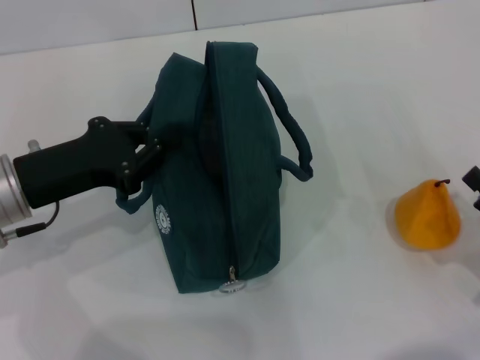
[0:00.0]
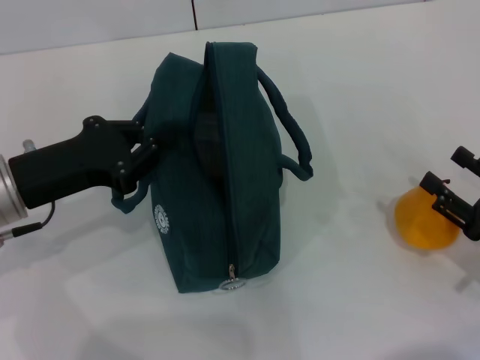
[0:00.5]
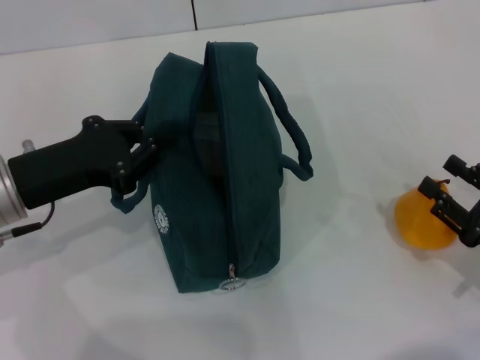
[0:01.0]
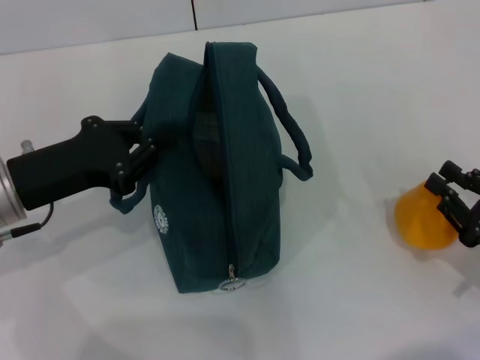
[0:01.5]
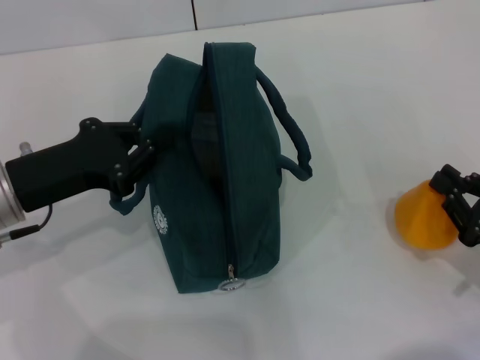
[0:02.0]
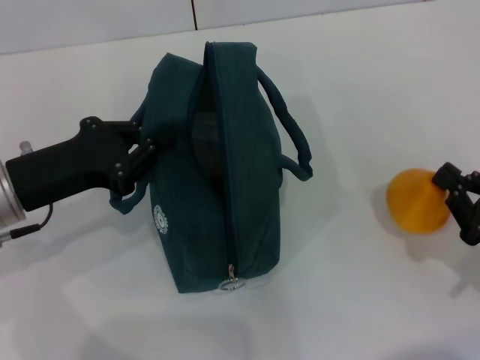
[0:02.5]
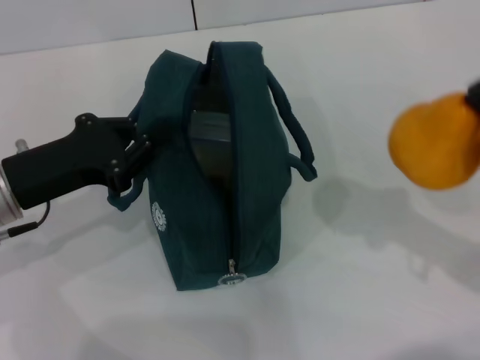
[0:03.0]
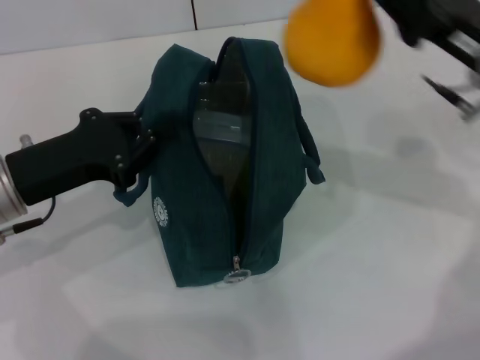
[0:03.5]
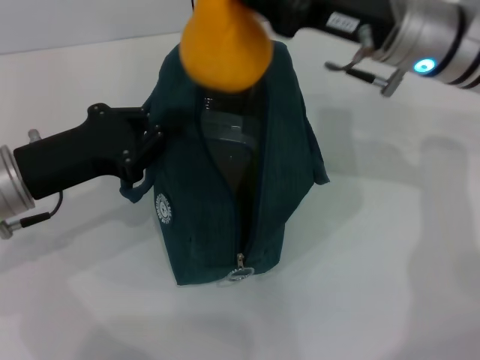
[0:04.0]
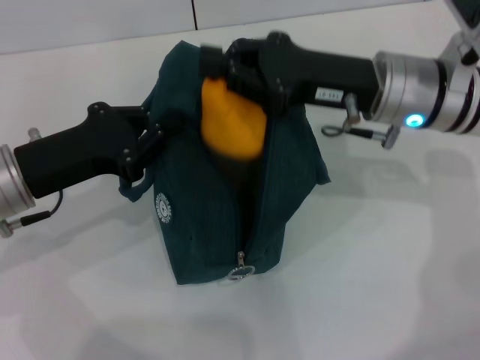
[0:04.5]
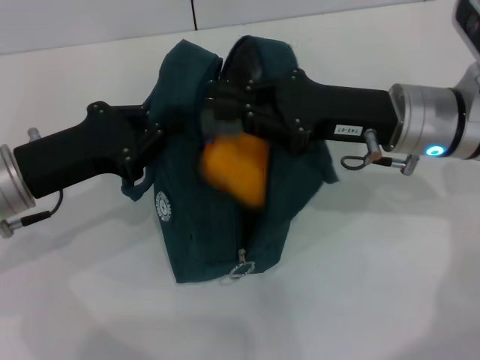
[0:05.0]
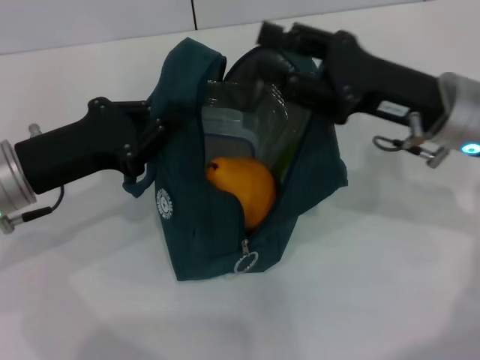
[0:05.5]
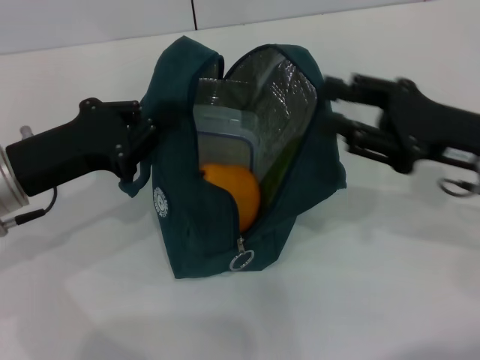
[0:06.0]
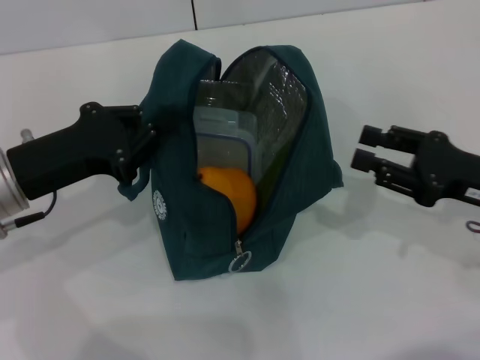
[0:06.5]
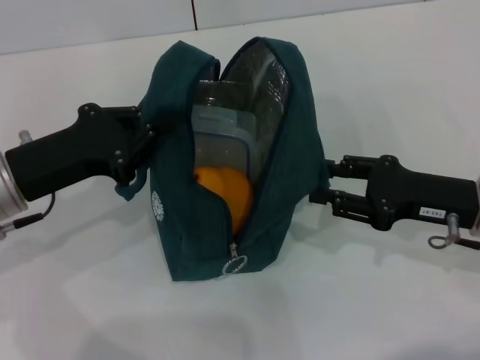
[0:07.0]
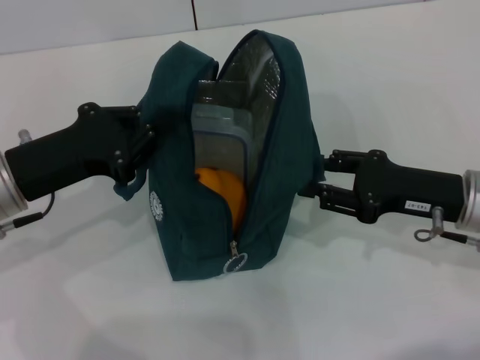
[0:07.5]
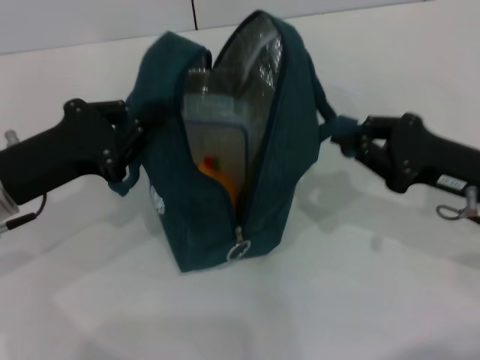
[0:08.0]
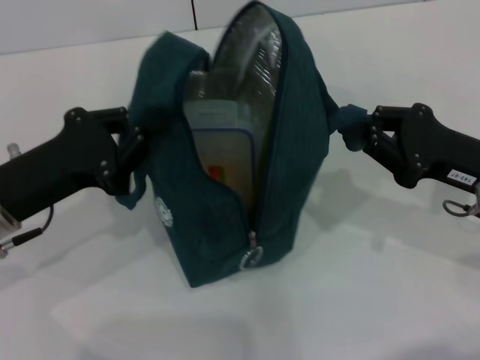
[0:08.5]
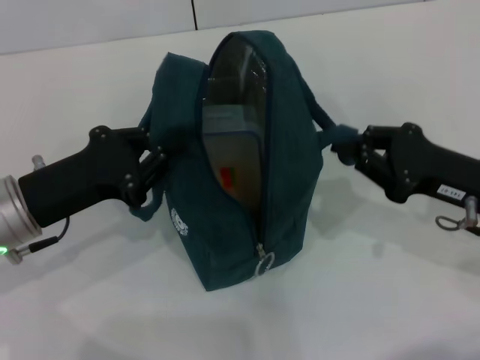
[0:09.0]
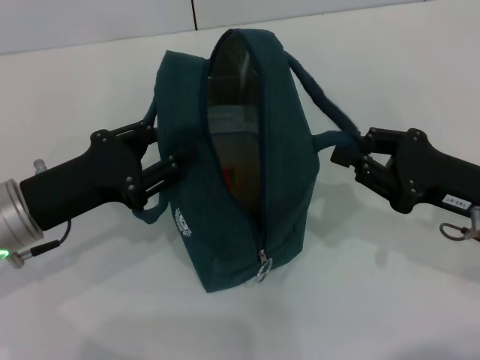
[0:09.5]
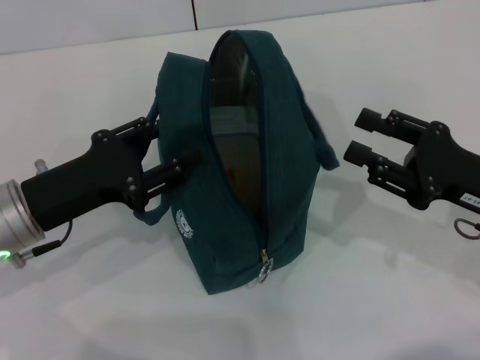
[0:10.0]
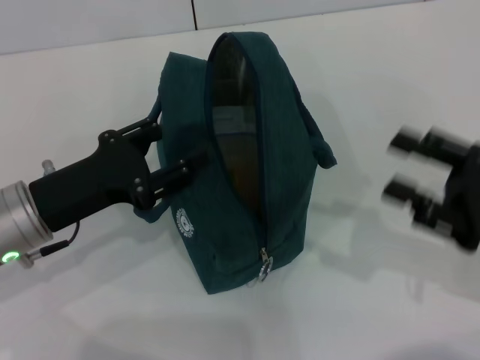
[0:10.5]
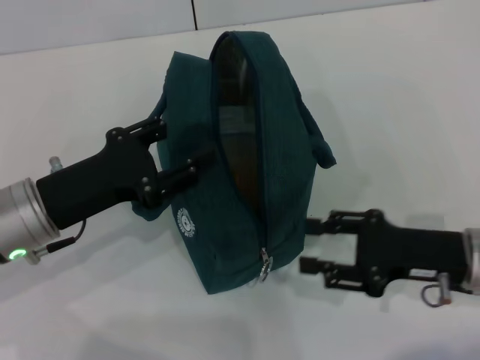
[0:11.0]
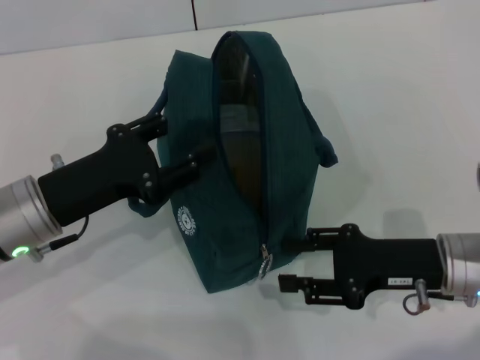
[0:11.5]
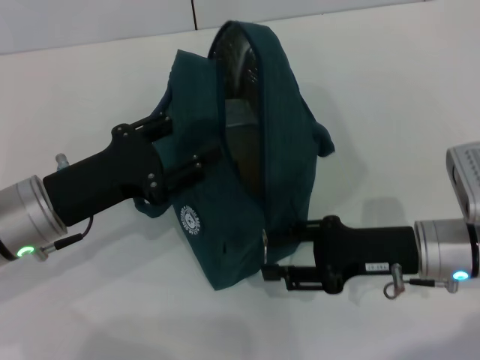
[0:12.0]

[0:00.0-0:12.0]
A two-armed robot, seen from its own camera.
Step, 0:00.0 to 0:02.0: Grab the pear with your right hand.
Step, 0:05.5 to 0:10.0: Hold the lunch bag with your right hand.
0:00.0 to 0:02.0: The right gripper closes.
0:02.0 to 0:04.0: The right gripper shifts roughly 30 cm forward, upward and to the left.
0:04.0 to 0:06.0: The right gripper heads to the right, backward and downward, covering roughly 15 cm, and opens up.
0:06.0 to 0:08.0: The grippers stay close to where they were, moving slightly.
0:08.0 to 0:10.0: The left gripper opens its fingers.
0:10.0 to 0:12.0: The right gripper travels to the left by roughly 5 cm.

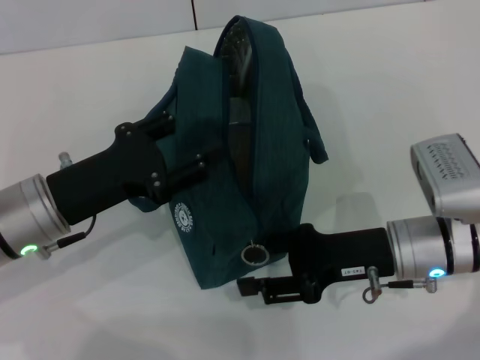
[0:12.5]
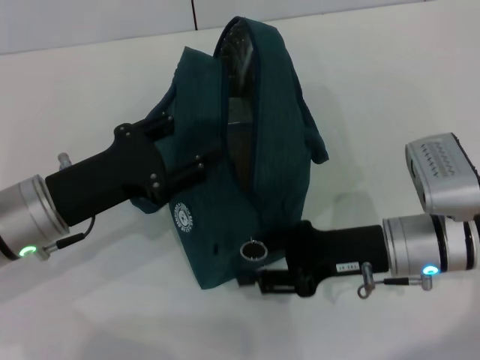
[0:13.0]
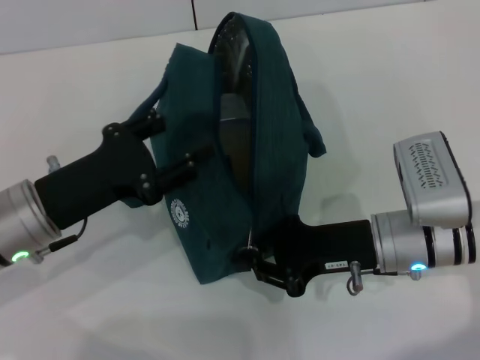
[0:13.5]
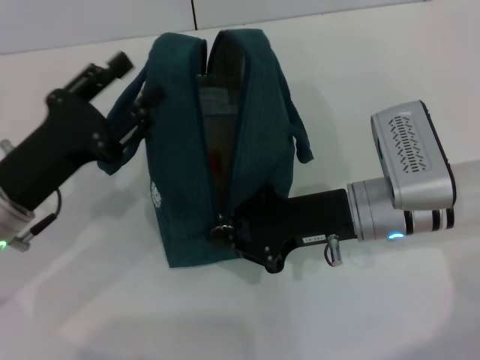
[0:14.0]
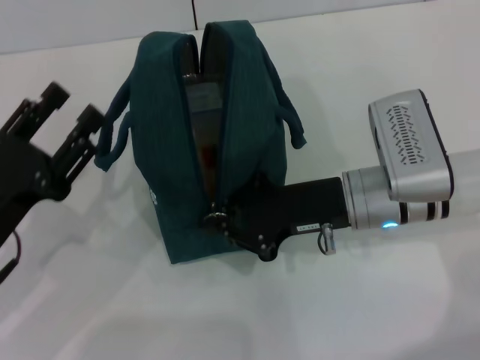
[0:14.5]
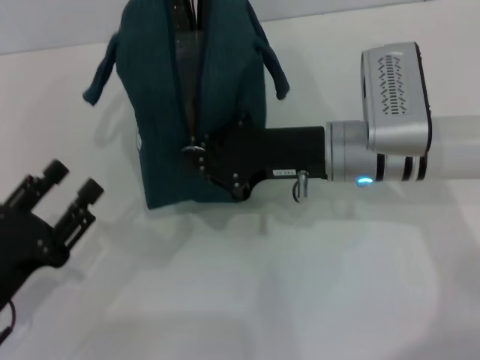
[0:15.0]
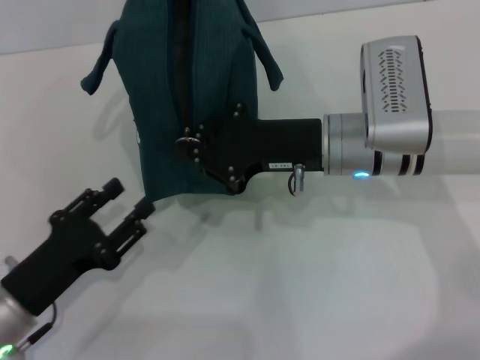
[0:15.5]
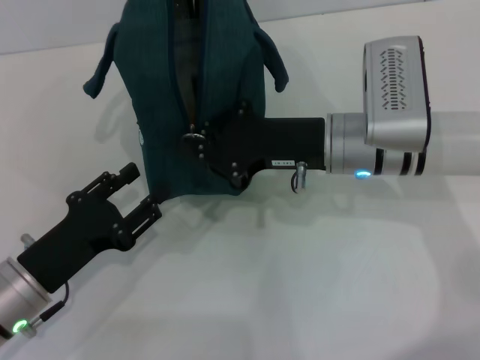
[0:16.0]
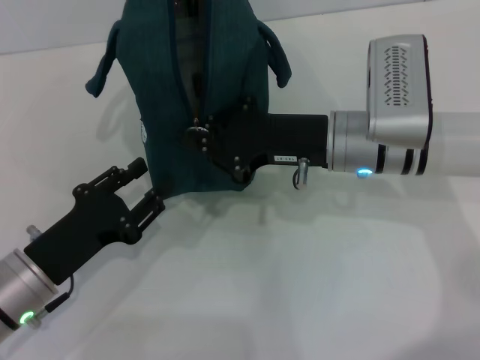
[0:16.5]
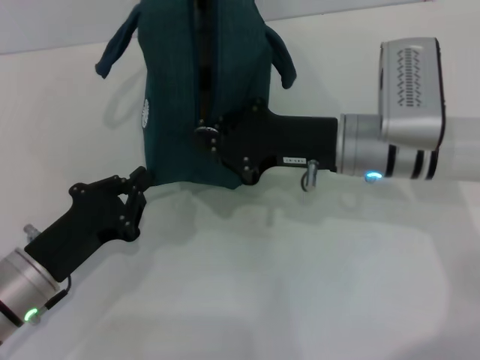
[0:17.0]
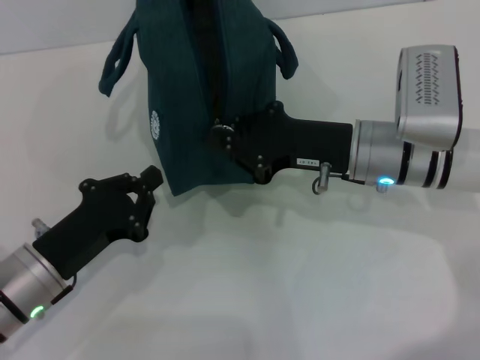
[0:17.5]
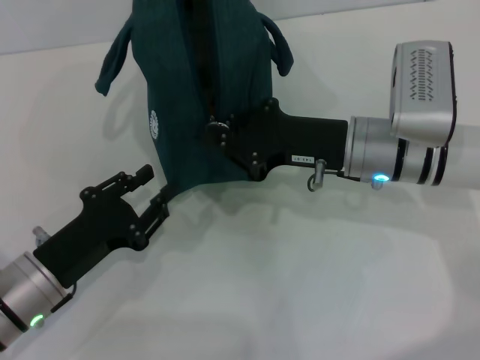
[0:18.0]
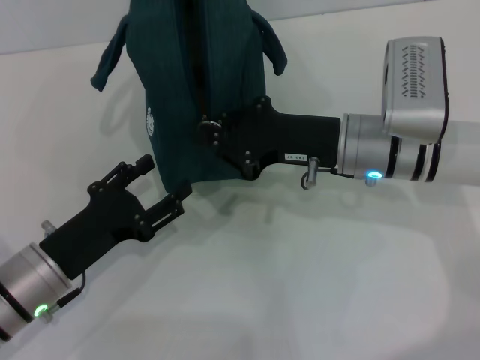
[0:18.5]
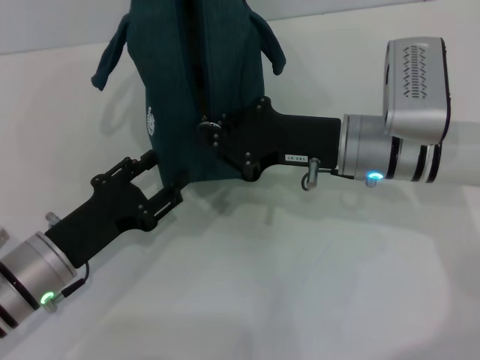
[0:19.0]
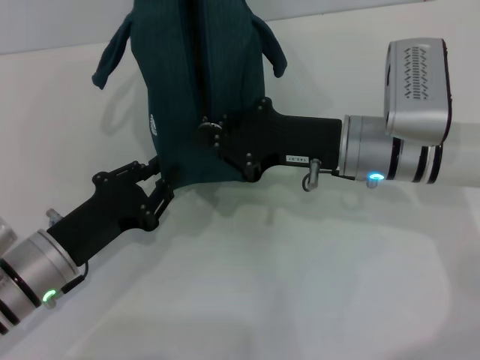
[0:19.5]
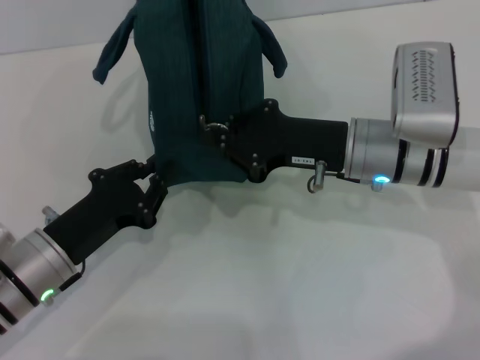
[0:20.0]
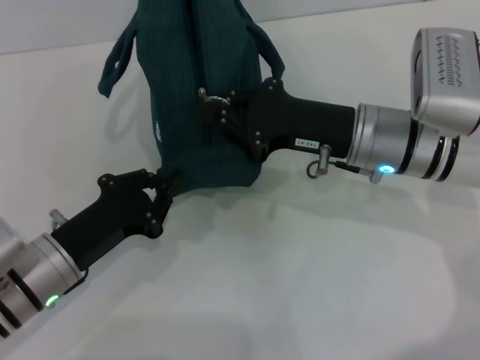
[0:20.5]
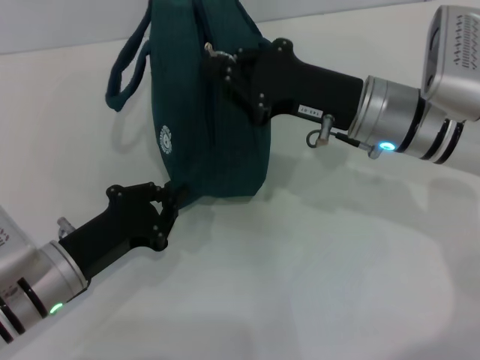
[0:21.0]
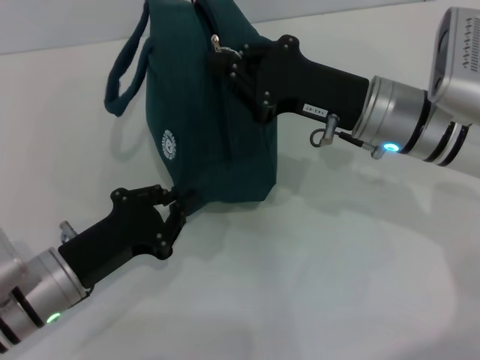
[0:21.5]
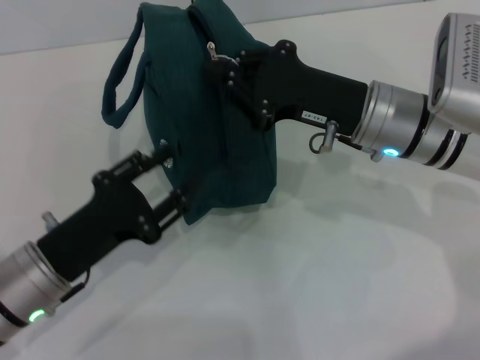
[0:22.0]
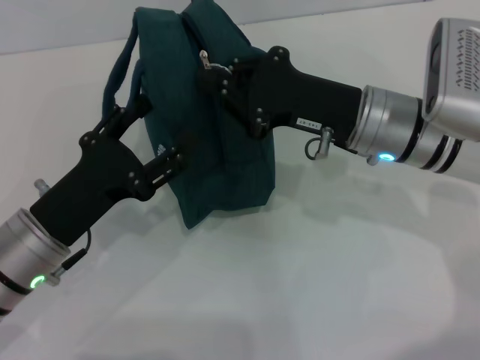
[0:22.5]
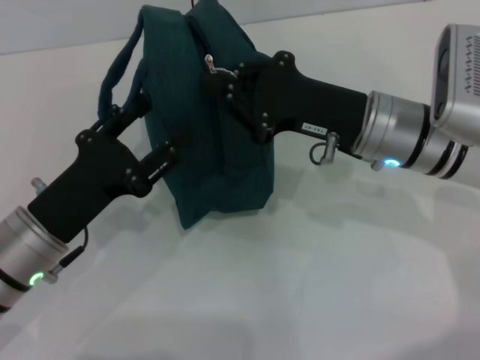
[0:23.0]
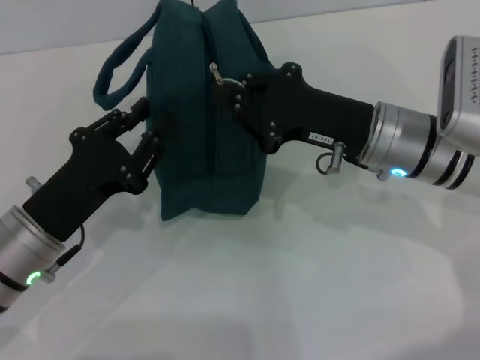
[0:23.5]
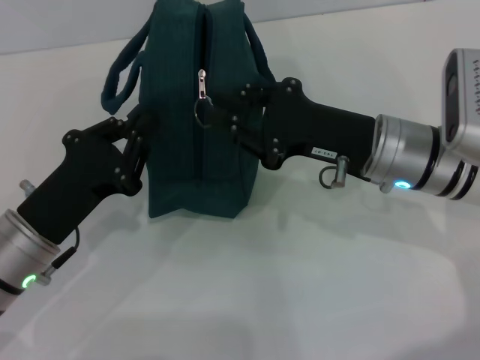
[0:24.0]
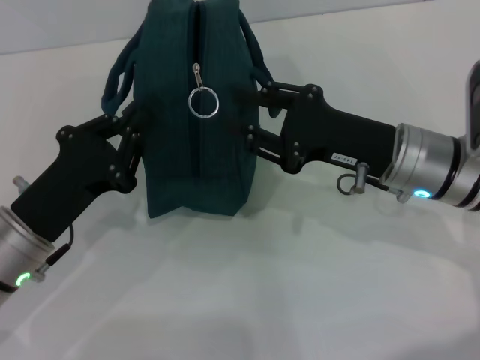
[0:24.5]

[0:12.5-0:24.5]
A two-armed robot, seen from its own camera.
0:12.5 to 0:14.5: The right gripper shifts by approximately 5 cm, and closes its fingers; the left gripper travels backward and to the left by about 10 cm.
0:14.5 to 0:16.5: The left gripper shifts by roughly 5 cm.
0:16.5 to 0:18.5: The left gripper closes and opens again.
0:18.5 to 0:20.5: The left gripper closes.
0:20.5 to 0:22.5: The left gripper opens.
0:22.5 to 0:24.5: The right gripper opens. Meanwhile the left gripper closes.

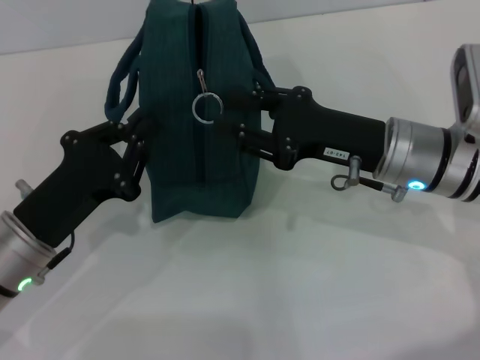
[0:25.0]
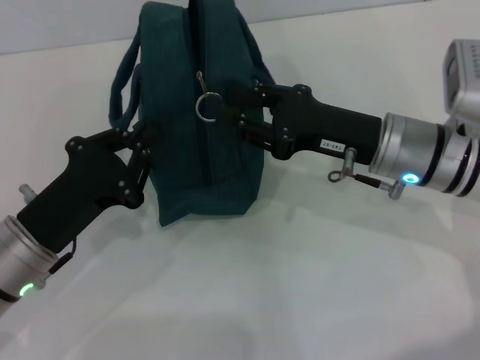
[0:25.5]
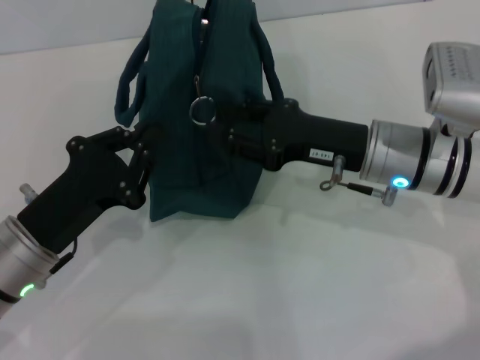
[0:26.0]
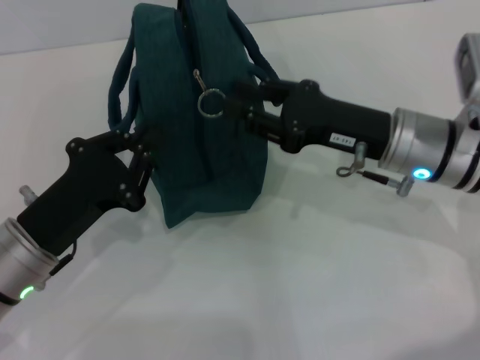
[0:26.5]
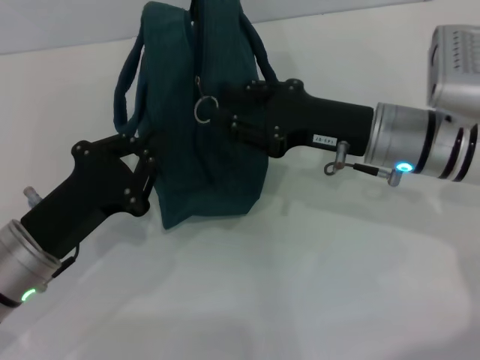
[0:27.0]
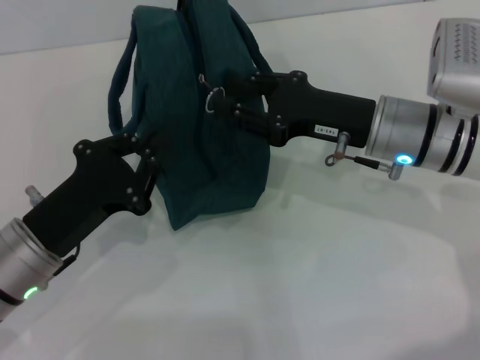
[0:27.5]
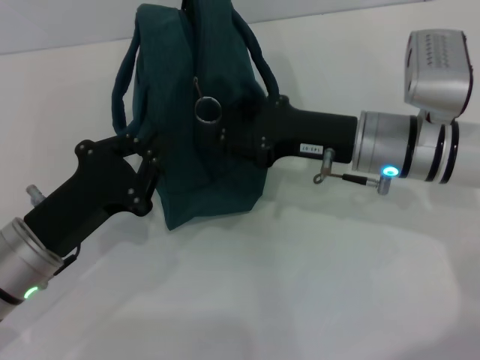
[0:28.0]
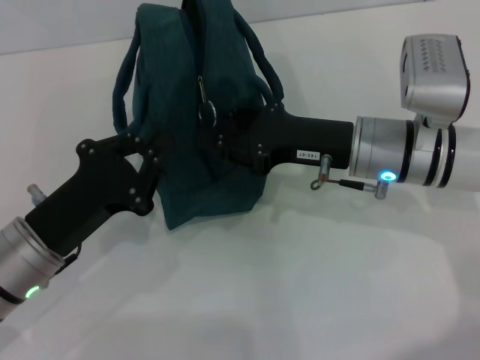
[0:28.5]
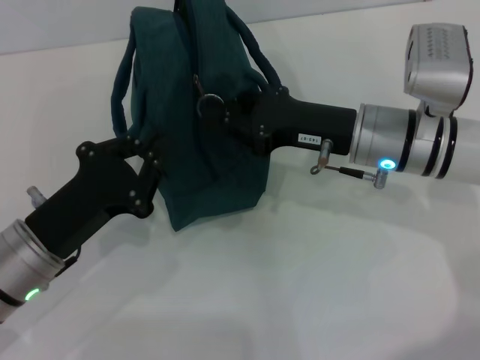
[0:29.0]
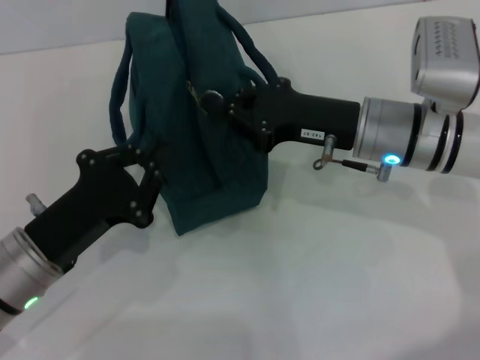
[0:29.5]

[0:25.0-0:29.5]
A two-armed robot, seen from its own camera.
0:25.0 to 0:27.0: The grippers make only small movements.
0:27.0 to 0:29.5: The right gripper closes.
